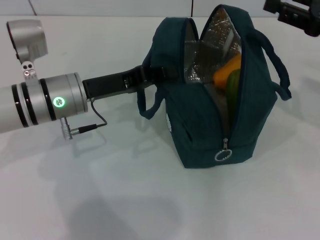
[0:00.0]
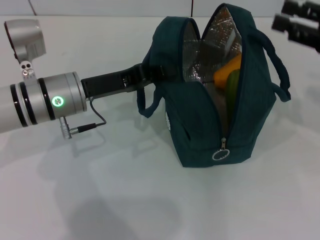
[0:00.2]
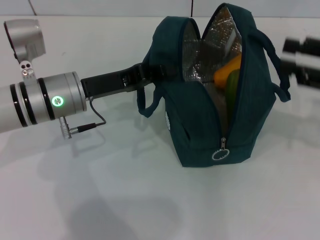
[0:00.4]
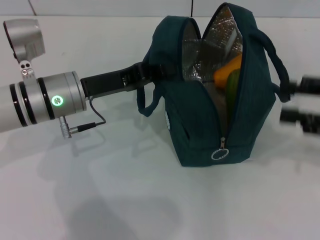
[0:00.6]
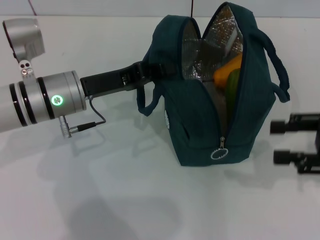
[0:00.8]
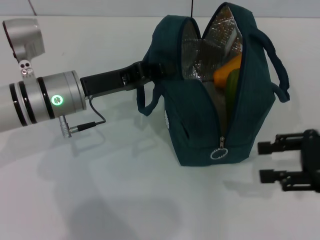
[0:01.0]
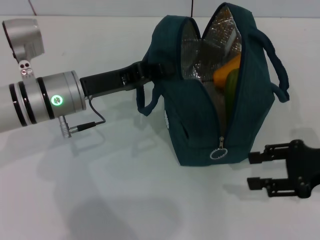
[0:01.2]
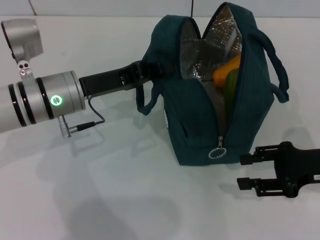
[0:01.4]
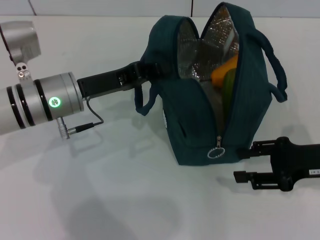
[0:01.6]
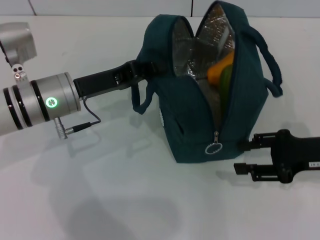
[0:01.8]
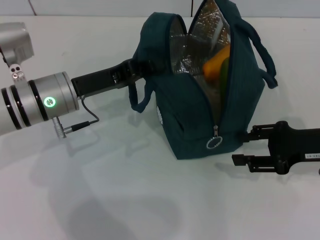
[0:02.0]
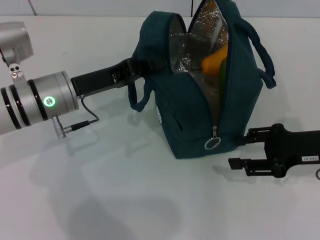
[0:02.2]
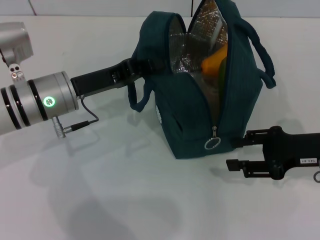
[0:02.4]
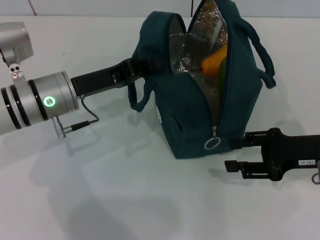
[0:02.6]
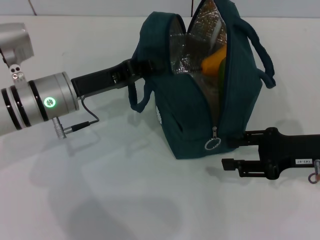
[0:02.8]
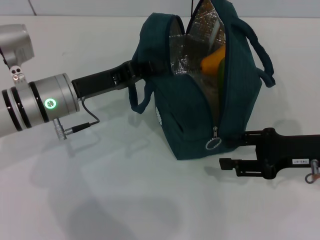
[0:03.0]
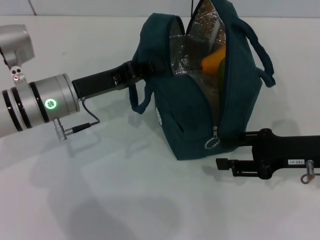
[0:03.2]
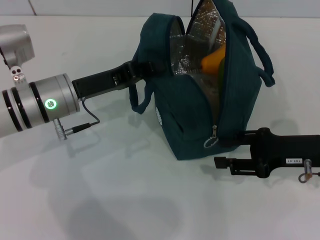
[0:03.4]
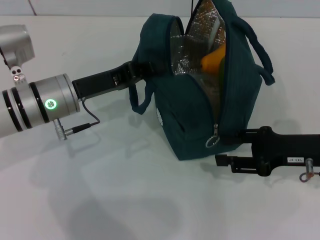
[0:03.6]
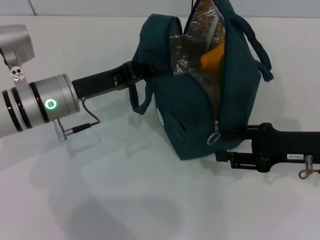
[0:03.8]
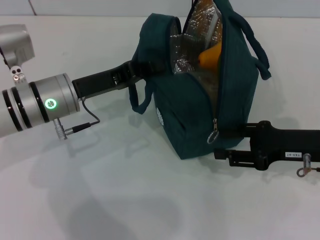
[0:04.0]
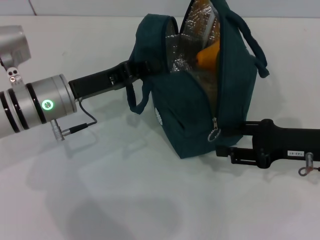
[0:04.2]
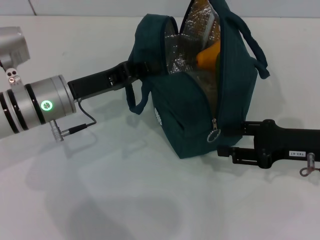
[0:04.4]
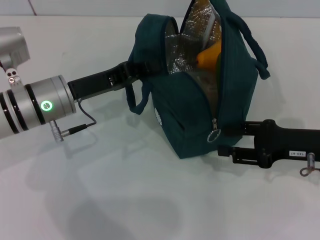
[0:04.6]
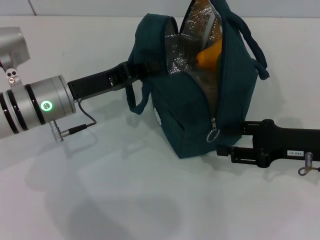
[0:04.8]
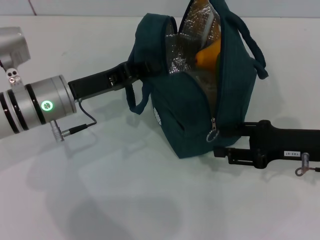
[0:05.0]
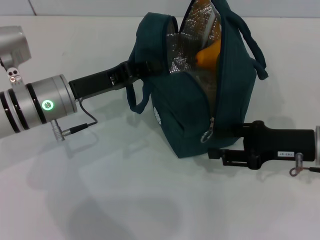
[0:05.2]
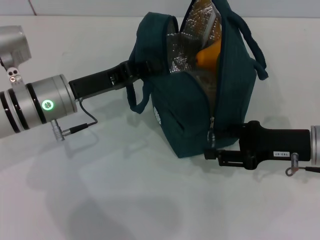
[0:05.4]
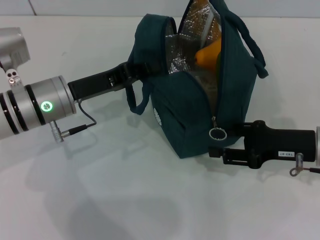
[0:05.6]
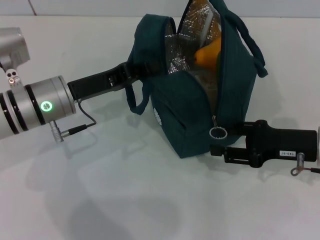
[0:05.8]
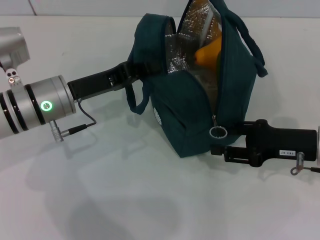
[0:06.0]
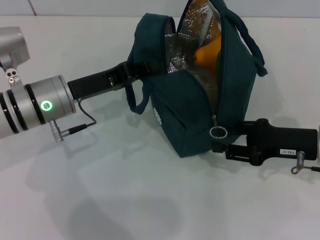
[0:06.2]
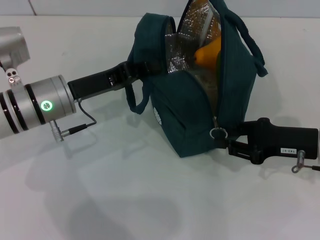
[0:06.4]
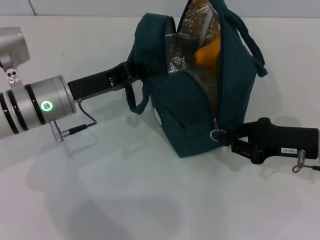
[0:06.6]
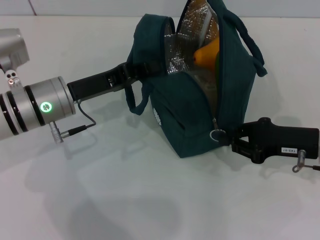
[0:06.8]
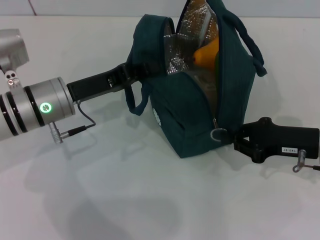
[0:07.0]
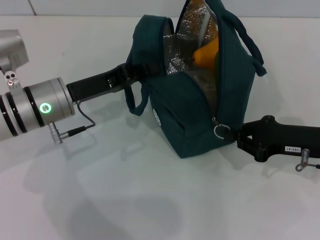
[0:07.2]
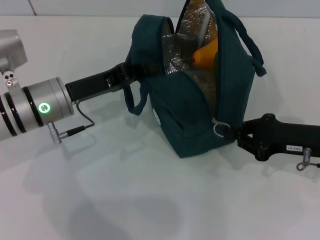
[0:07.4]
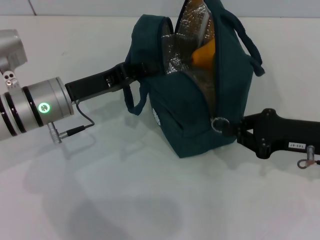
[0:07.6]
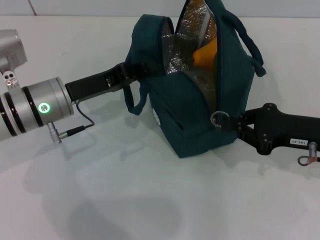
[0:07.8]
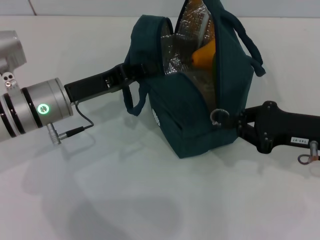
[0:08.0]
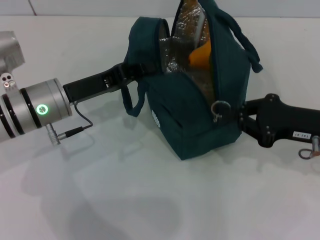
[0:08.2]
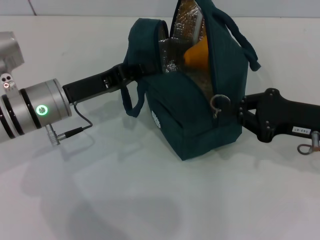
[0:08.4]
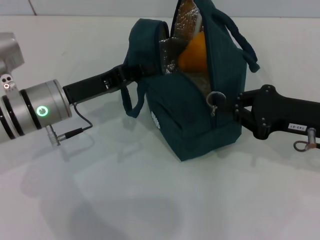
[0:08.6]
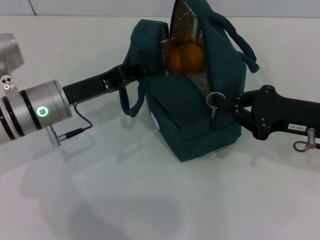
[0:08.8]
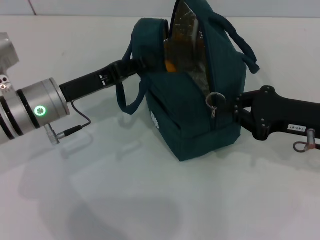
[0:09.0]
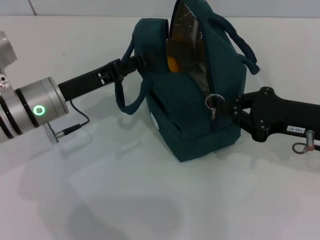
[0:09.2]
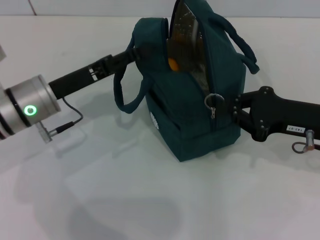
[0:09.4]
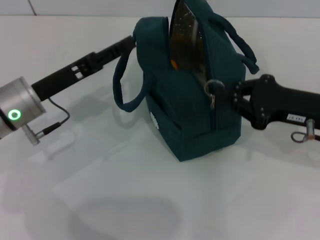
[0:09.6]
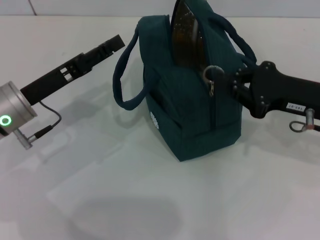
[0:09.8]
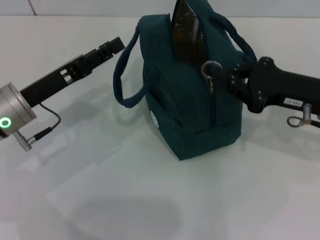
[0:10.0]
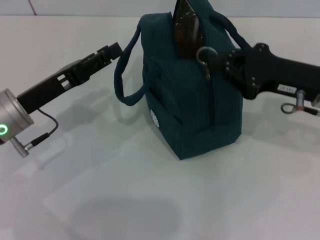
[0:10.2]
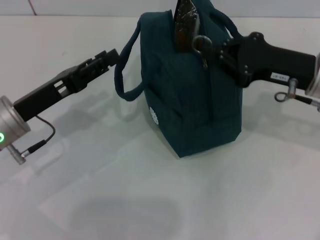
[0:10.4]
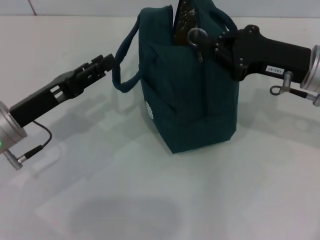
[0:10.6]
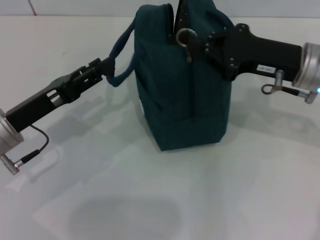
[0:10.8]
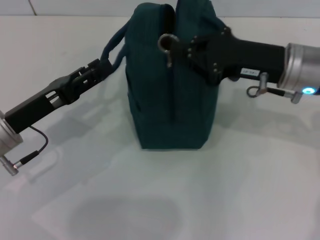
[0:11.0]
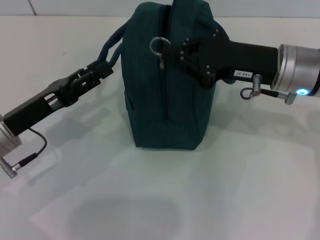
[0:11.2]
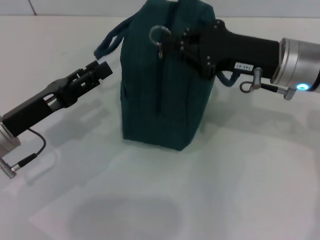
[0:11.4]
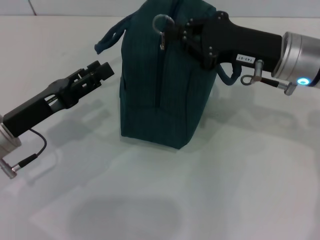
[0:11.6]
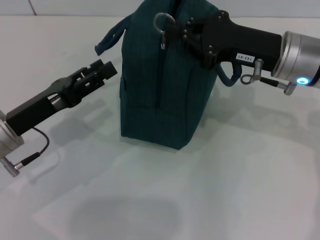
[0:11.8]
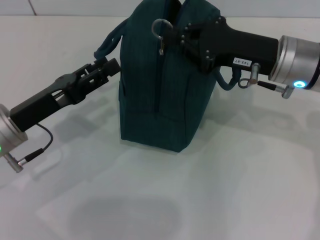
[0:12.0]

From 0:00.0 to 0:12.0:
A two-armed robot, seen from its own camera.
Step, from 0:00.0 to 0:09.4: Hold the lunch bag with your left hand.
From 0:00.0 to 0:01.6: The right gripper travels downward and backward by some 10 cm.
From 0:01.6 to 0:06.0: The grippers make only small movements.
From 0:06.0 to 0:07.6: The right gripper closes.
From 0:07.6 to 0:09.0: The grippers move only a little.
From 0:09.0 to 0:10.4: The right gripper ends up some 5 cm from where it was. The left gripper shifts by about 5 cm, and opens.
From 0:10.4 to 0:12.0: The right gripper shifts about 5 cm to the left.

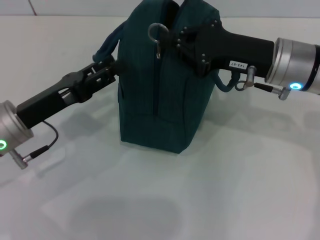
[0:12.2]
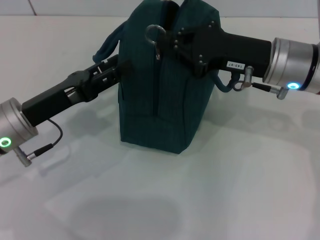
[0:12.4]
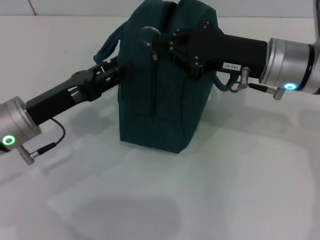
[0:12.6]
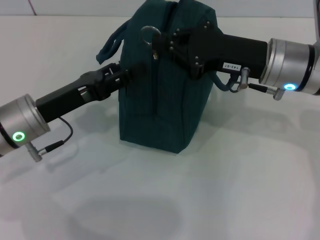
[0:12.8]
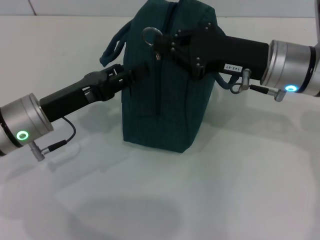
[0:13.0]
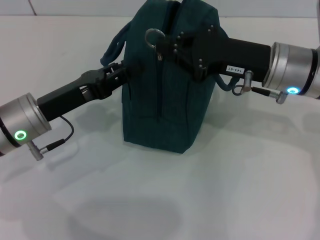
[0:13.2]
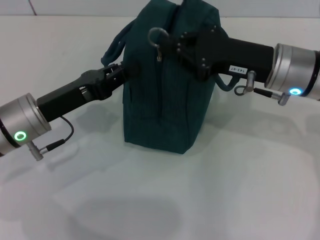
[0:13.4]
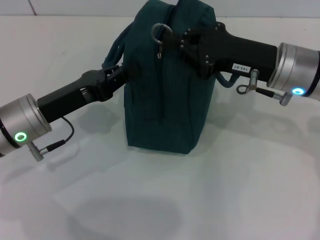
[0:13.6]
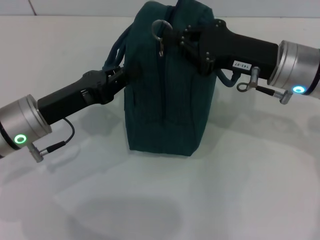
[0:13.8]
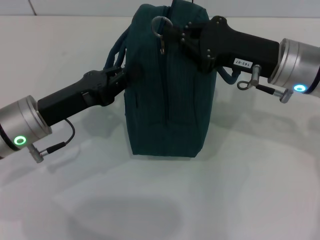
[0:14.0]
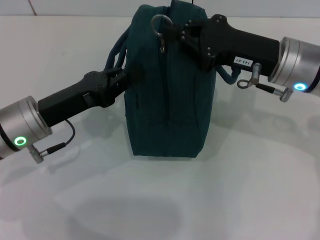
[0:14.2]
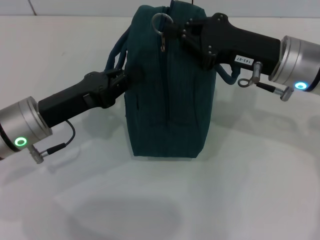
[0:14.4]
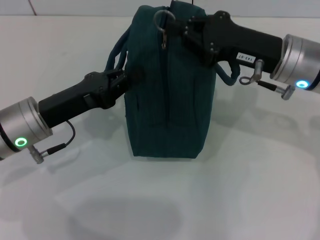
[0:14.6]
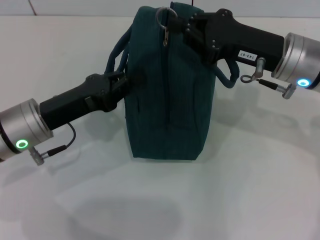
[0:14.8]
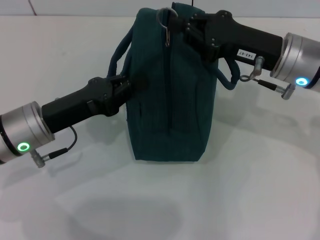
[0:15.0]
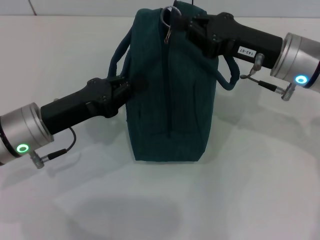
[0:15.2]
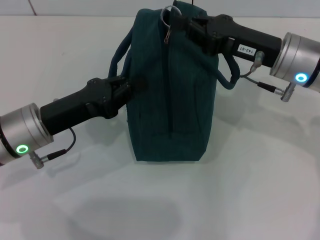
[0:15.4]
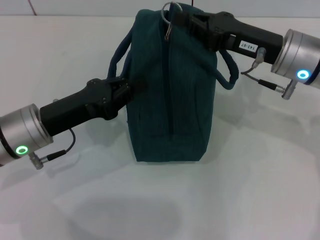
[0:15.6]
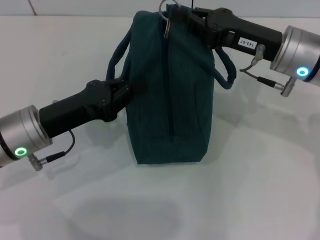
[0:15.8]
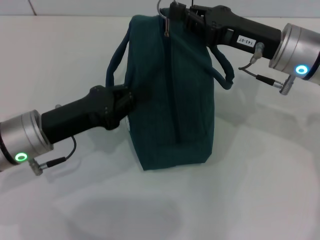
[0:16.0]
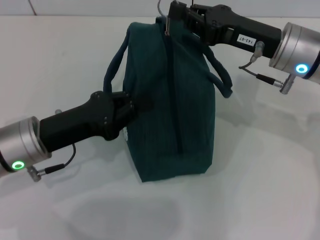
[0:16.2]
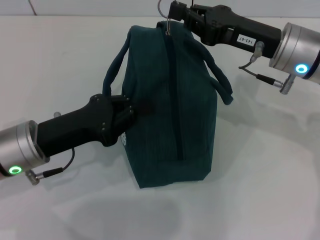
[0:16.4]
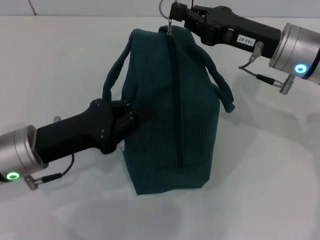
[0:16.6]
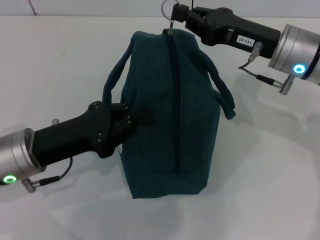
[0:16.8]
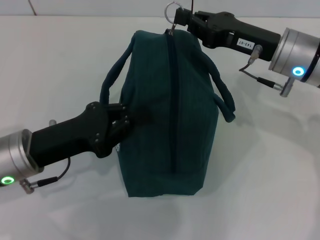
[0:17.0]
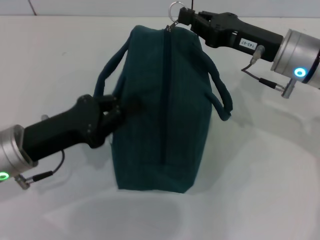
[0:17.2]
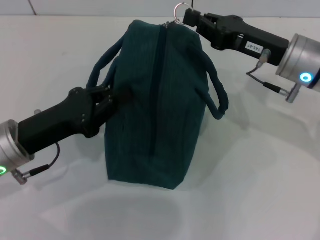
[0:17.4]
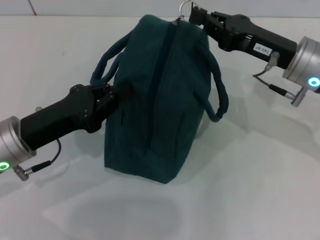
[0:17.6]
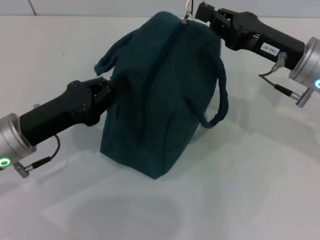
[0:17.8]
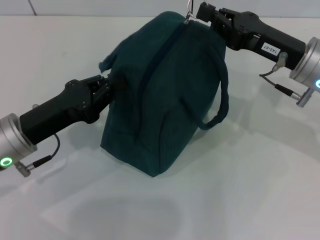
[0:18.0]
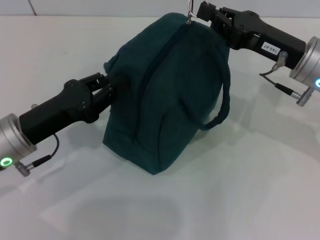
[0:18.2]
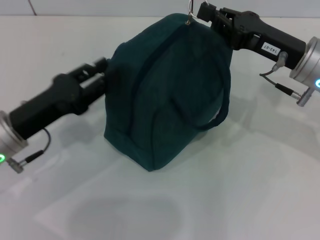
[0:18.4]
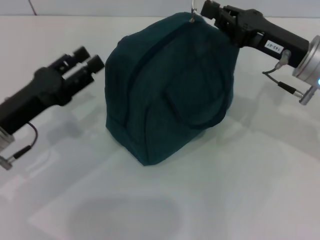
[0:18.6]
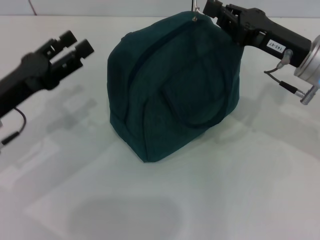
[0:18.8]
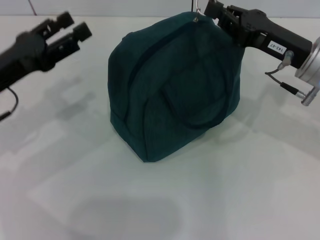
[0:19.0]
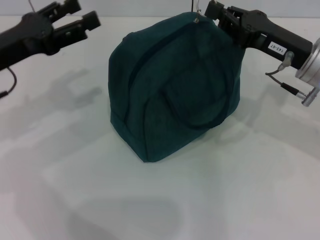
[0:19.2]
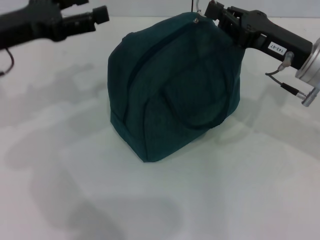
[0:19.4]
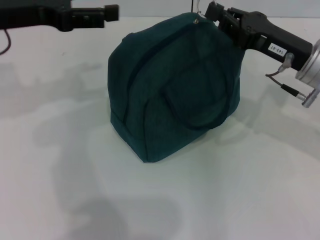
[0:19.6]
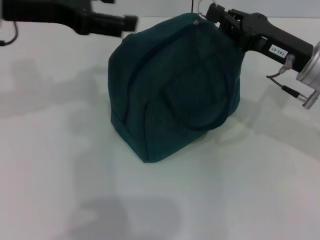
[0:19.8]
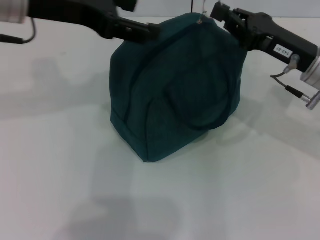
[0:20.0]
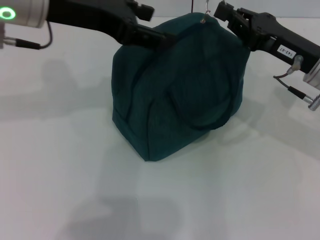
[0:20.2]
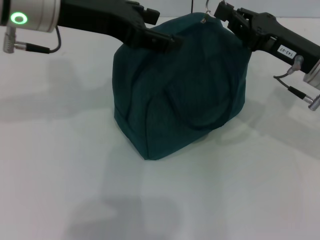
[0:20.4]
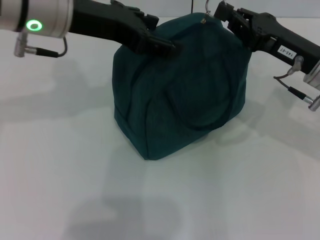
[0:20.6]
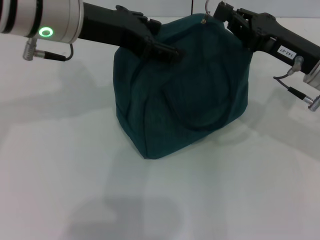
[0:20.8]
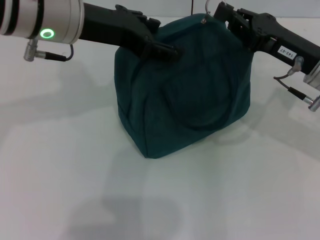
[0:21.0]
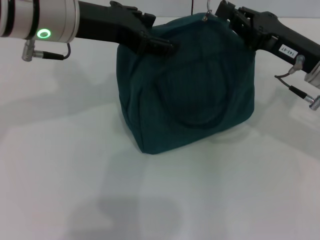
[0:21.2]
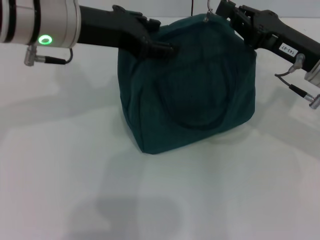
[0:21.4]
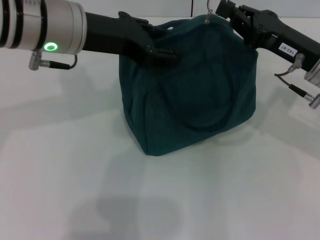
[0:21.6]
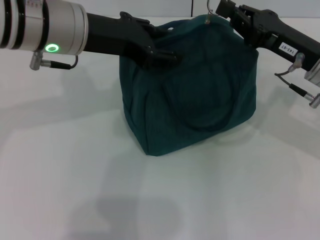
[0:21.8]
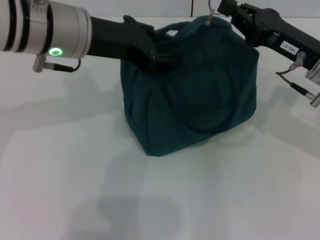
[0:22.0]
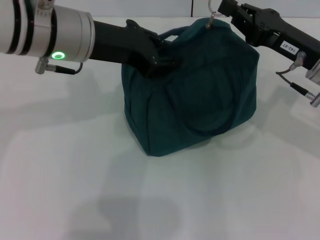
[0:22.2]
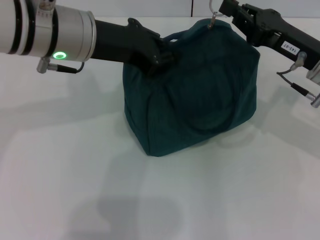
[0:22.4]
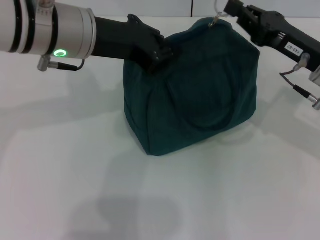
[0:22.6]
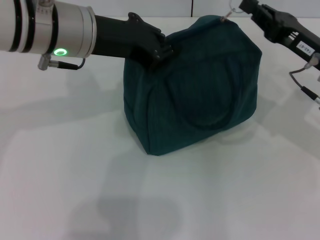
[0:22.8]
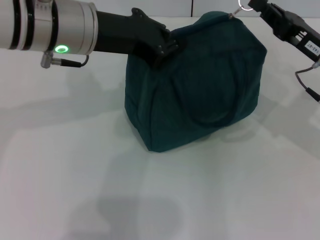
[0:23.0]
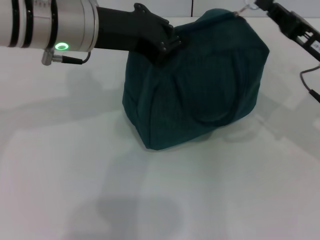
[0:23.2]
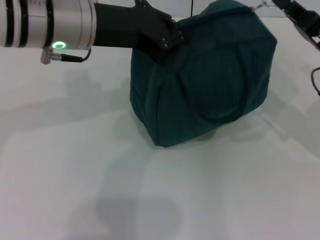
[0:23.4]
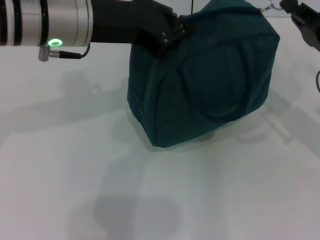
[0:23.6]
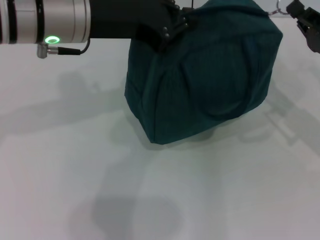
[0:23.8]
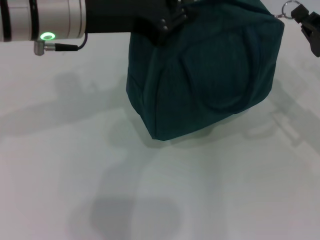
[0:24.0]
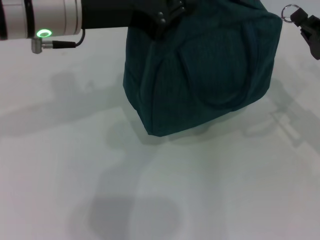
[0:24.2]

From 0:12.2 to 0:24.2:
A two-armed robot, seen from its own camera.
From 0:12.2 to 0:13.8: The left gripper closes up.
From 0:13.8 to 0:15.2: The grippers move only a little.
From 0:18.2 to 0:19.8: The left gripper heads upward and forward, covering about 20 cm, and opens up.
From 0:19.8 to 0:21.2: The left gripper shifts approximately 5 cm to the right.
From 0:21.2 to 0:22.6: The left gripper closes up.
From 0:22.6 to 0:24.2: The right gripper shifts approximately 5 cm to the right.
